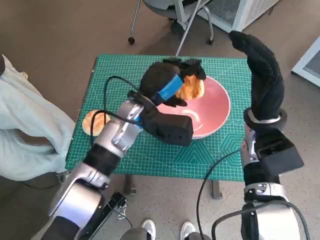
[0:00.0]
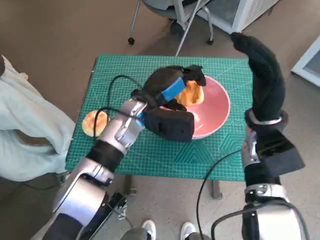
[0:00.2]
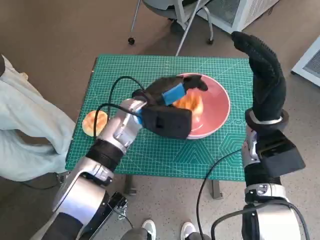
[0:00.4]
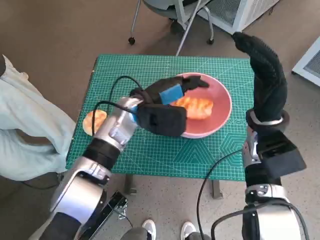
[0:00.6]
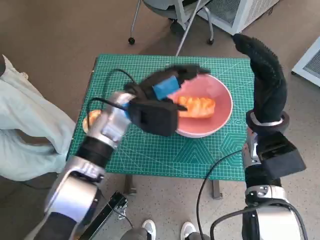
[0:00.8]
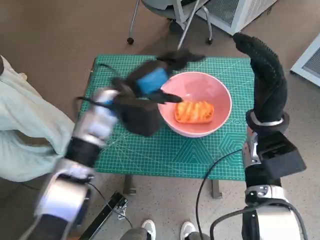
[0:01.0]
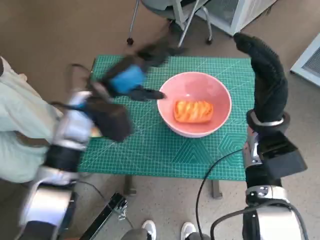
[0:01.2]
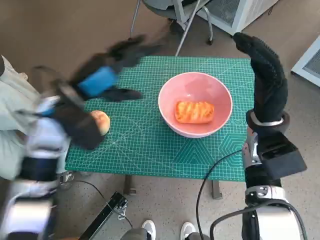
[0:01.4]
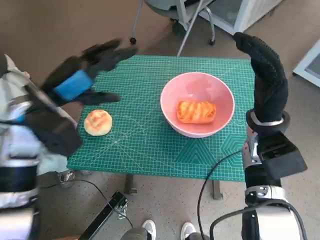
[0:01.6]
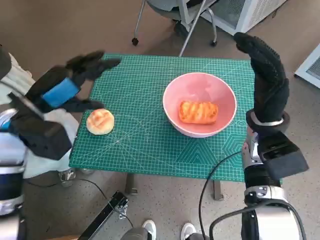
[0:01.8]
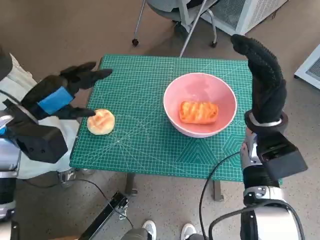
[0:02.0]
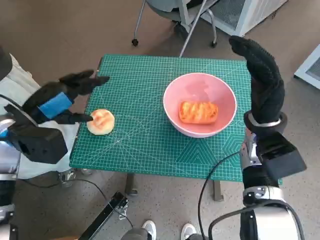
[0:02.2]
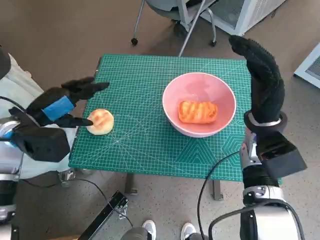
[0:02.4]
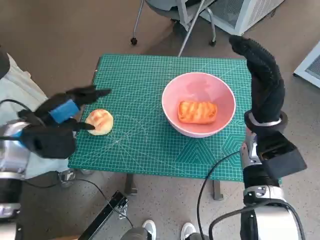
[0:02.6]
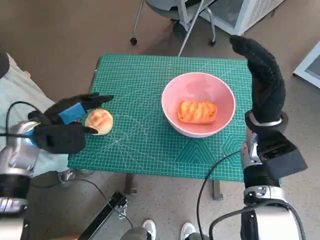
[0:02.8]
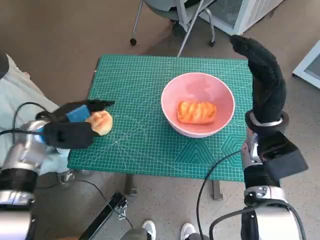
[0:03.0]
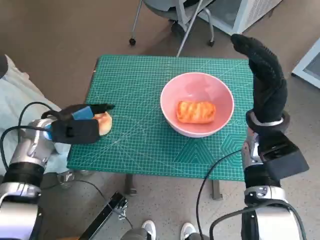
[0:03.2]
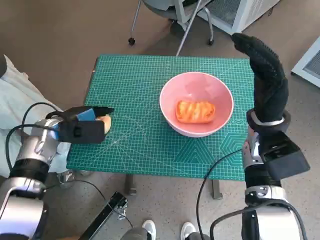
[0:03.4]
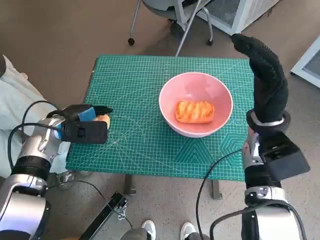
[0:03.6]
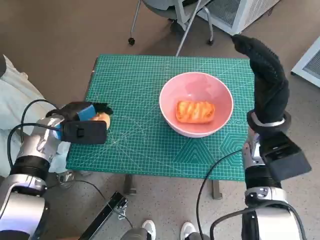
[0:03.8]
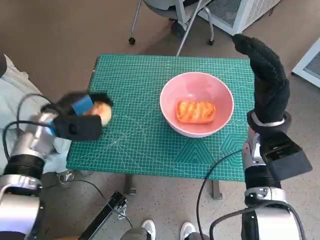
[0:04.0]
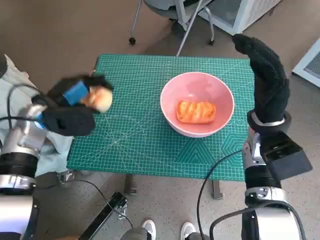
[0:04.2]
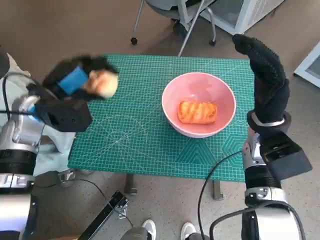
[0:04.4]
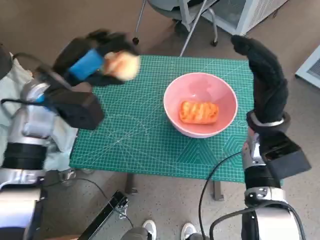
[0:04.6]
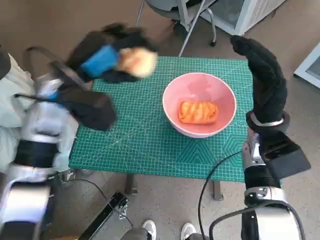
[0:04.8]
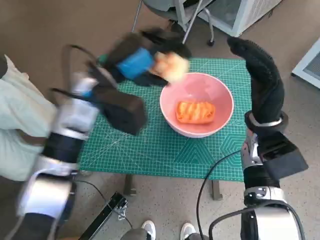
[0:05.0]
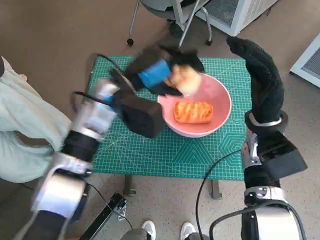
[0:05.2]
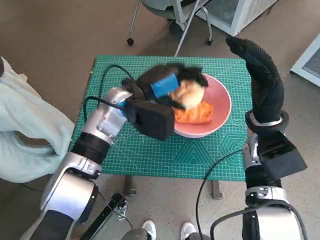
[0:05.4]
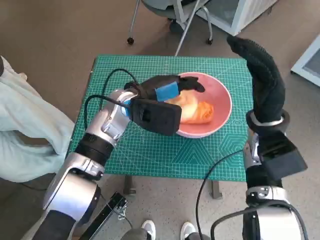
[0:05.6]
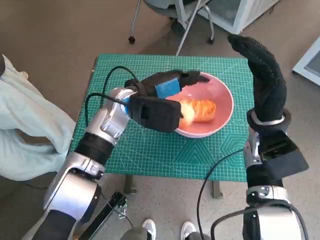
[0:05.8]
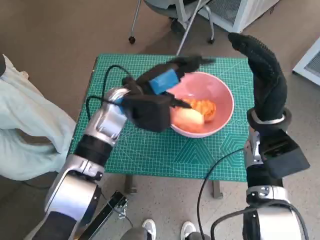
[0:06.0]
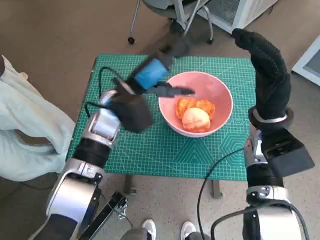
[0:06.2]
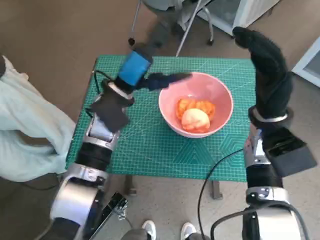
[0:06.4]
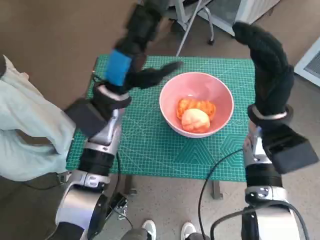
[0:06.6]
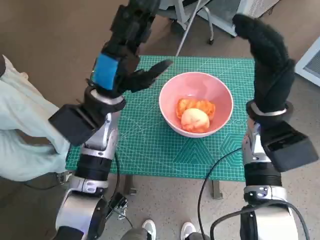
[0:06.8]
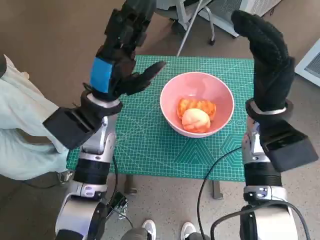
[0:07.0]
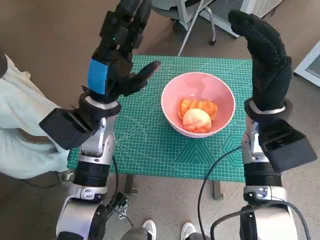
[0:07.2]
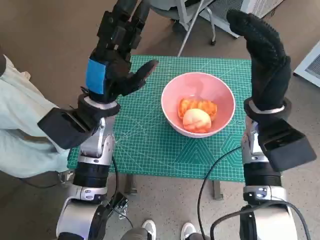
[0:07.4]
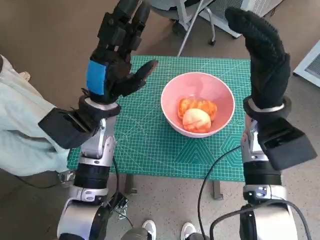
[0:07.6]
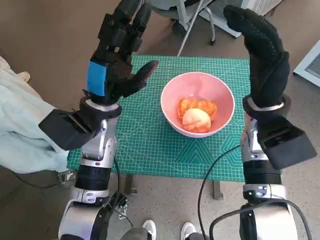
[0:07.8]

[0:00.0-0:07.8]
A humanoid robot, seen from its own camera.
Task of the whole recording: Push the bowl to the center of the table and put the bread into the bowl.
Step, 0.6 to 3.6 s: Grasp the round bread with left hand.
Step, 3.8 to 5.6 s: Place the round bread in pink bowl with left hand.
0.0 to 1.6 s: The left hand shifts approximately 15 cm to the left and upward.
1.6 to 3.2 s: The left hand heads downward and to the left, covering about 10 cm.
3.2 to 4.6 s: The left hand moves upward, about 10 cm.
4.6 to 6.2 s: The left hand heads to the right, covering some 10 cm.

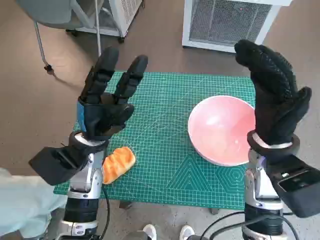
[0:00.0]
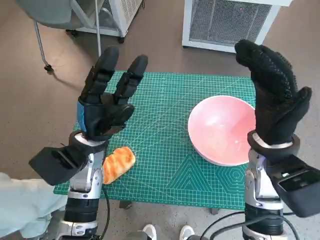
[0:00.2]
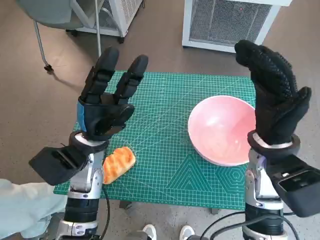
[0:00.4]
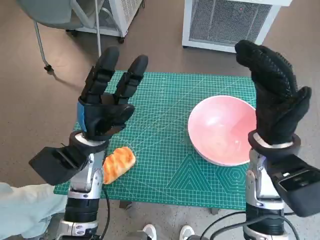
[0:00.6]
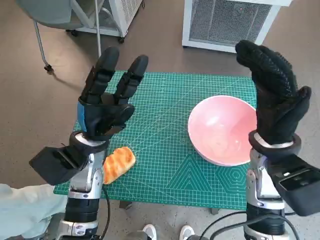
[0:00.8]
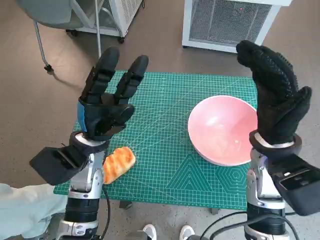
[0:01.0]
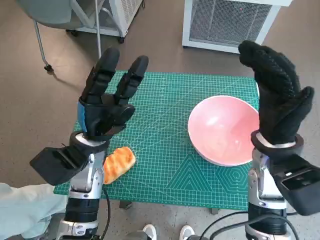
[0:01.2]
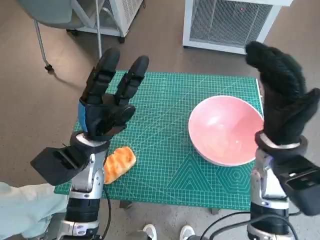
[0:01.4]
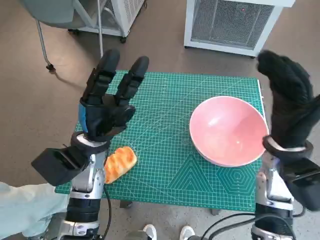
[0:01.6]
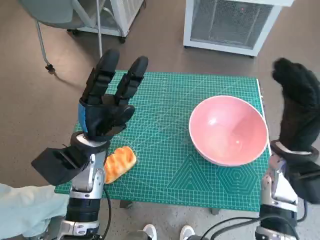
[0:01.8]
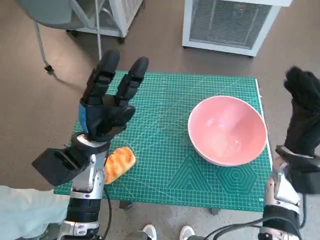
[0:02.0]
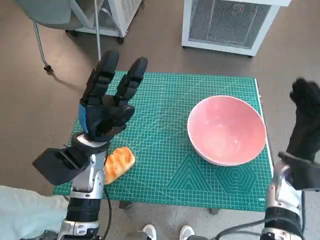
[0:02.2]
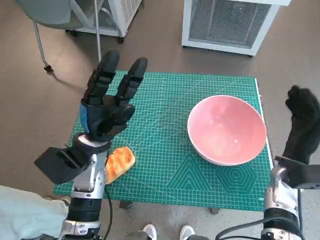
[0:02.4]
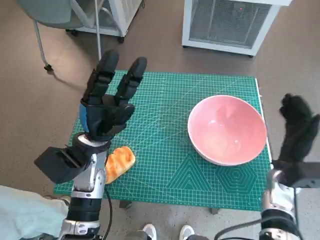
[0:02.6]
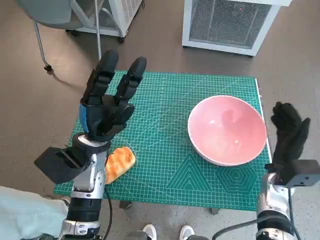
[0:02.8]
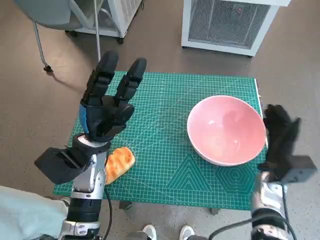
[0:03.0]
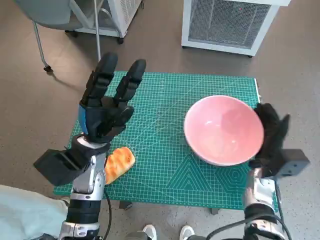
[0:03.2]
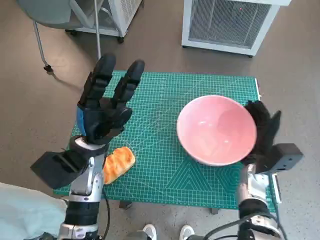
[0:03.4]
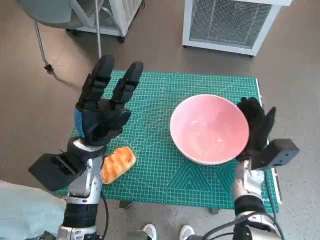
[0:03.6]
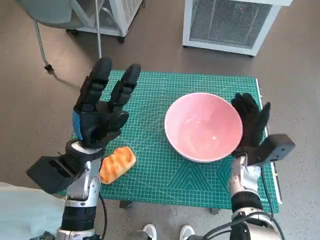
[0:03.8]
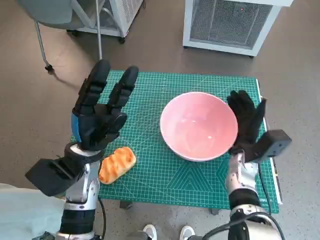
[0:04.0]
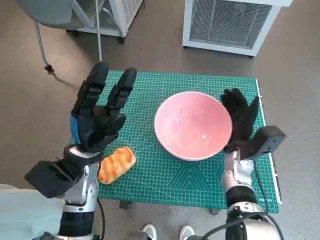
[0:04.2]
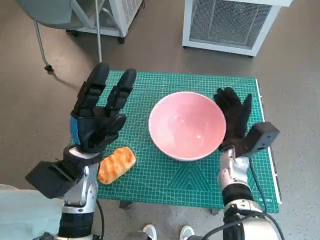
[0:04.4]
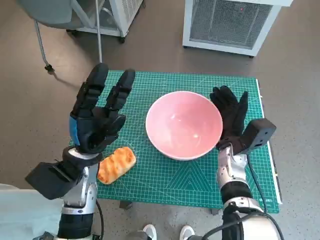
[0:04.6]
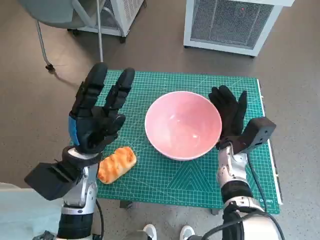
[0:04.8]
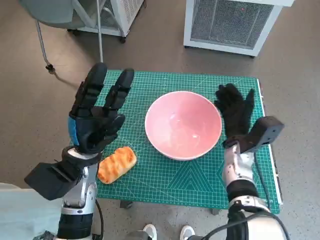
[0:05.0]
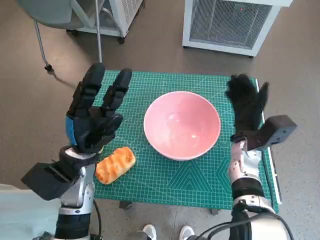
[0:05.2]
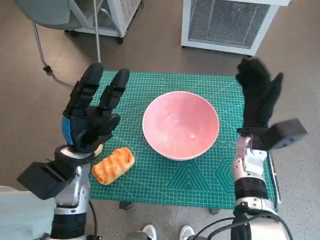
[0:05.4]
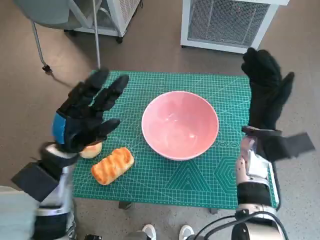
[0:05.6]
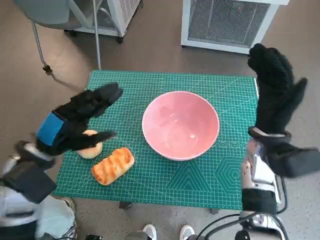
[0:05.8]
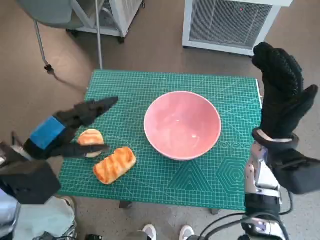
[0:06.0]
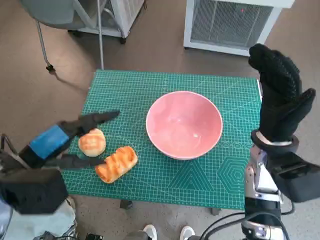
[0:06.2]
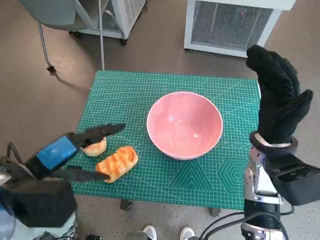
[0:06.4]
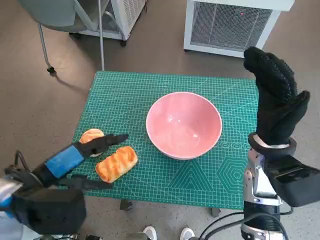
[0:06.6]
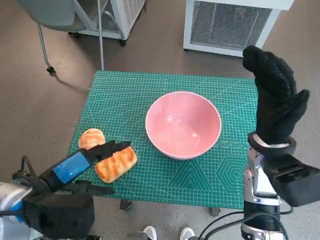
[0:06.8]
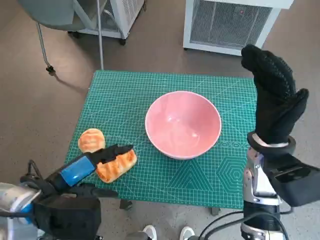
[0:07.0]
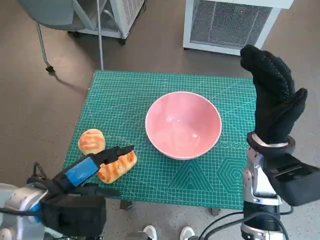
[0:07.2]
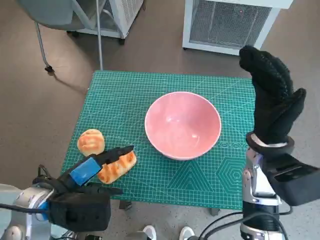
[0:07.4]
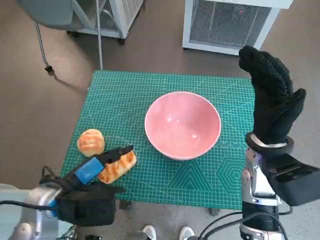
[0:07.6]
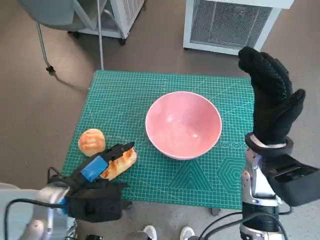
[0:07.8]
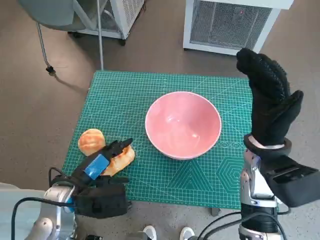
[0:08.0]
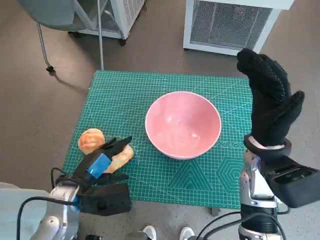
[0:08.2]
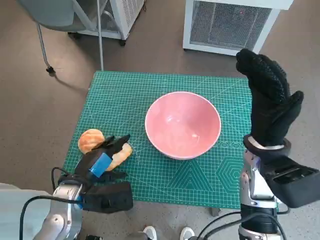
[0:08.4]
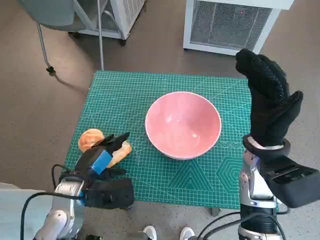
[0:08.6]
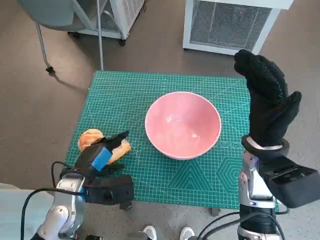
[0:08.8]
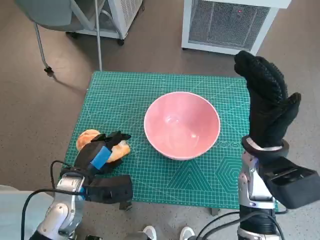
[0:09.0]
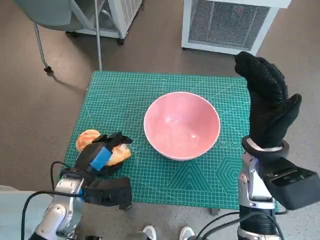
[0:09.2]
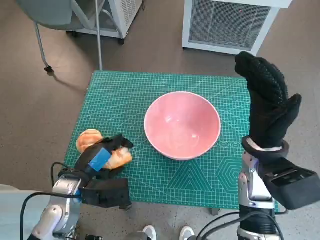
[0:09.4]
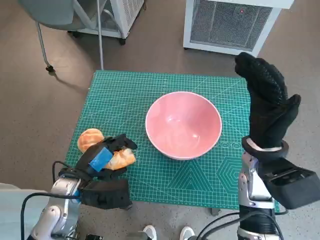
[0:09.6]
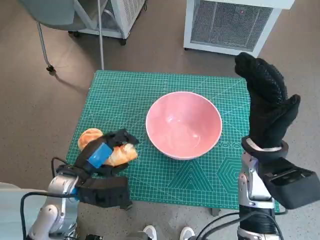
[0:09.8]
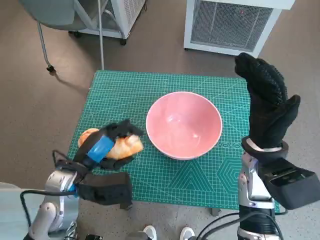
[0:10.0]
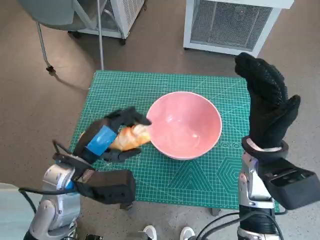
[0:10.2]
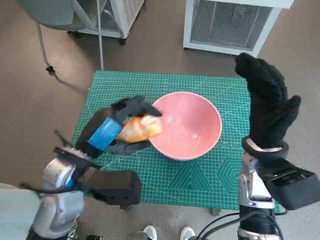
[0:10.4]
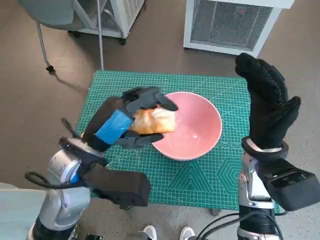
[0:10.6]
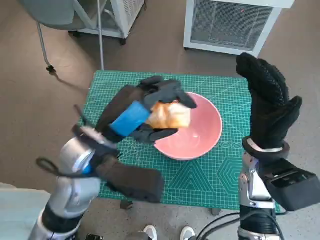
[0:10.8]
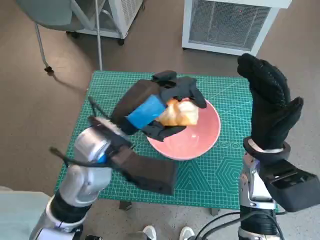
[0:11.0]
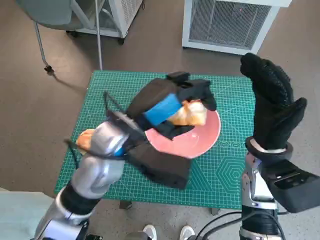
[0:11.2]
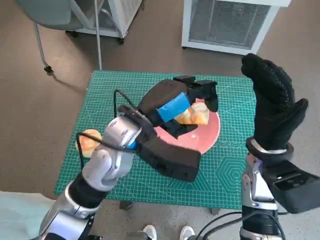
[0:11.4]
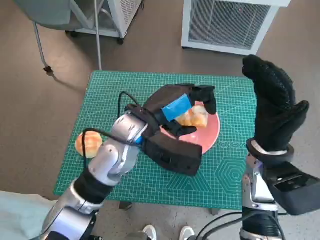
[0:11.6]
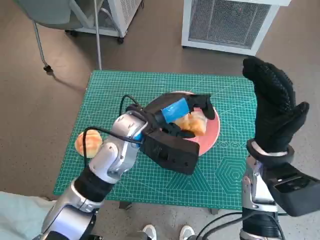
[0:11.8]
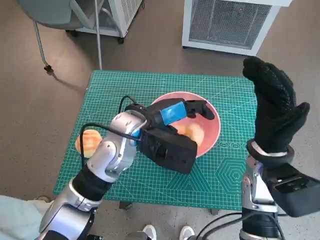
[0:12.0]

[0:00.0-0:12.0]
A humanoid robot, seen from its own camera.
Task of the whole recording: Push the bowl to the center of the table and put the bread into the bowl.
Step, 0.0 to 5.2 s: Move the pink bowl to the center of table with right hand.
Step, 5.4 to 9.0 s: Grasp the long bread with left hand.
1.6 to 3.0 s: The right hand is displaced downward by roughly 15 cm.
3.0 to 4.4 s: The right hand travels to the left by roughly 10 cm.
4.4 to 6.0 s: The right hand travels upward by approximately 10 cm; the left hand shifts about 10 cm to the left and upward.
6.0 to 7.6 s: The left hand heads downward, covering approximately 5 cm.
7.6 to 9.0 s: The left hand heads downward, covering some 5 cm.
9.0 to 10.4 s: The left hand goes about 10 cm upward.
10.4 to 12.0 s: The left hand travels to the right and forward by some 10 cm.

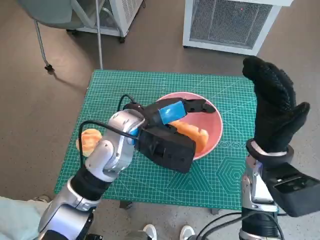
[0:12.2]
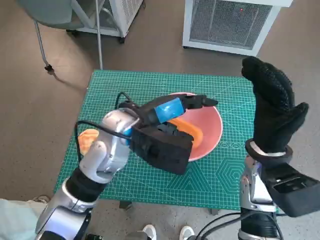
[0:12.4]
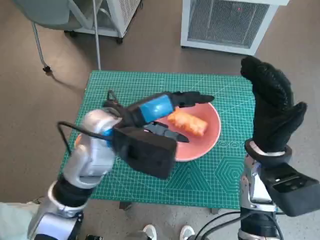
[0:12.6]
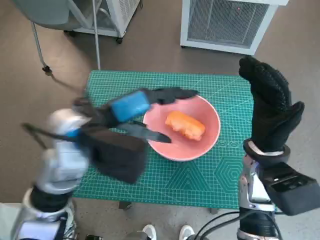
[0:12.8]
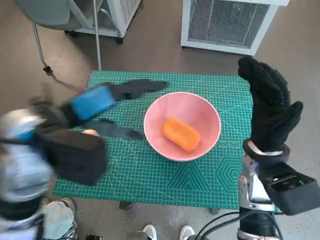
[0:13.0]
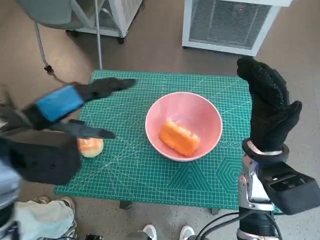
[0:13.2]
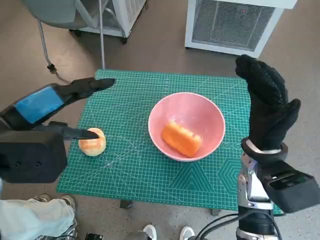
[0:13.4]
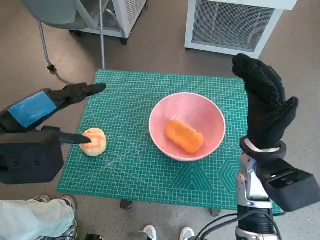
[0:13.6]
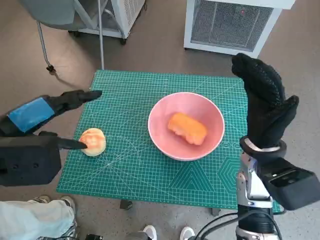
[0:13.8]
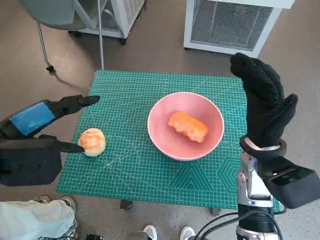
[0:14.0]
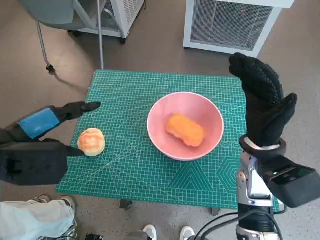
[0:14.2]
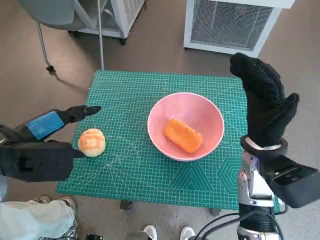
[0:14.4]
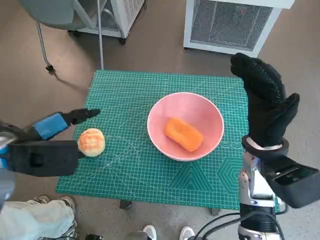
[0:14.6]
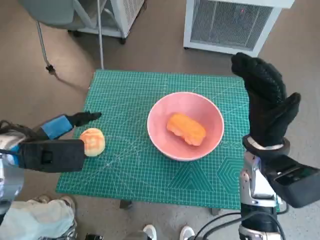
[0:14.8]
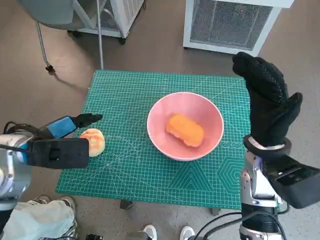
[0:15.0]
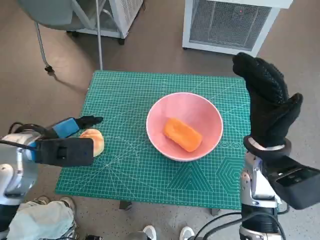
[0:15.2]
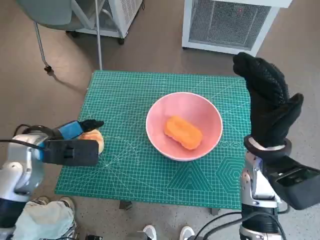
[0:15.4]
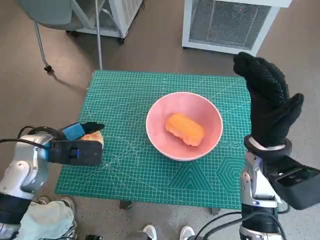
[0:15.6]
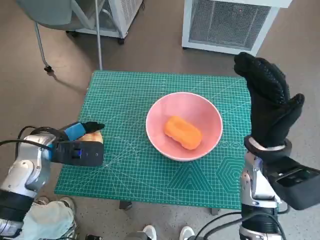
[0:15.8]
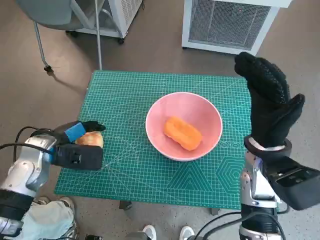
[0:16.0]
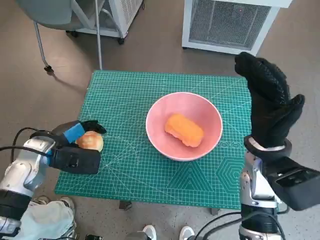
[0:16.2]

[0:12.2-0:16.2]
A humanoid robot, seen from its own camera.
Task of the whole recording: Push the bowl to the center of the table and put the bread into the bowl.
Step, 13.0 to 15.8 s: Grasp the round bread with left hand.
12.2 to 13.6 s: The left hand heads to the left, upward and backward, covering about 20 cm.
13.6 to 14.8 s: The left hand shifts some 10 cm downward.
14.8 to 16.2 s: The left hand moves downward, approximately 10 cm.
